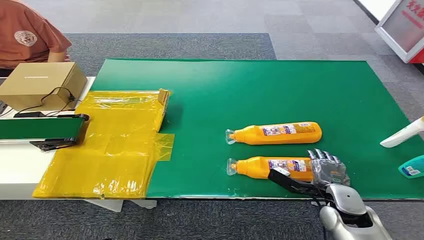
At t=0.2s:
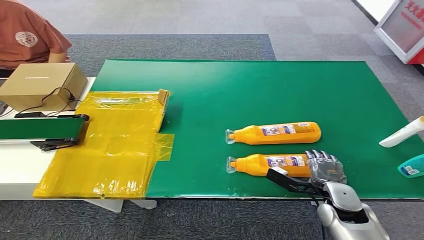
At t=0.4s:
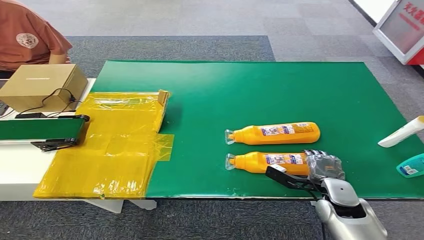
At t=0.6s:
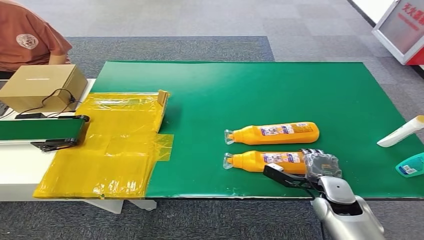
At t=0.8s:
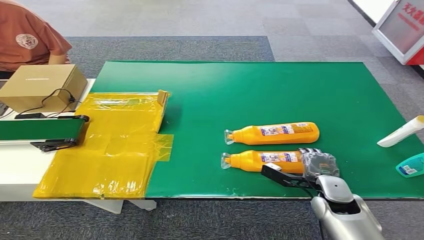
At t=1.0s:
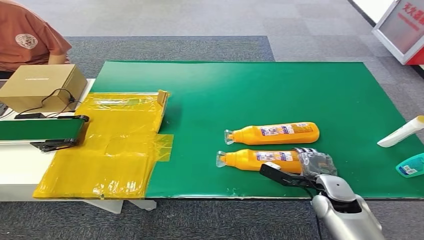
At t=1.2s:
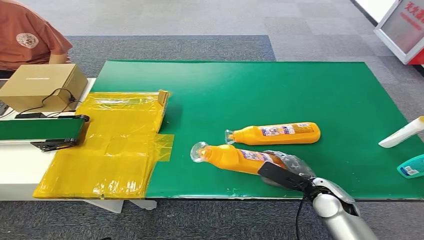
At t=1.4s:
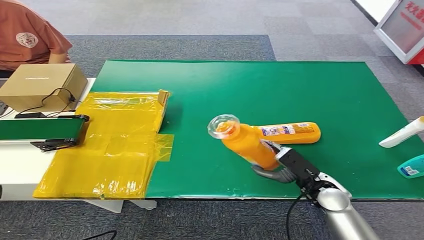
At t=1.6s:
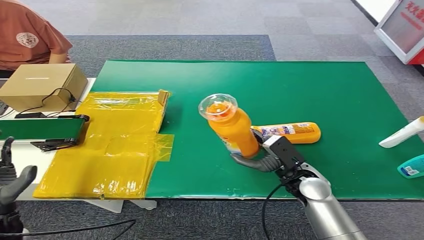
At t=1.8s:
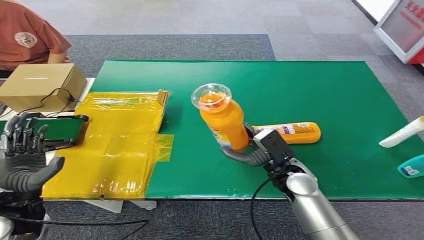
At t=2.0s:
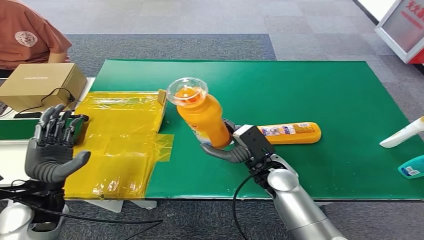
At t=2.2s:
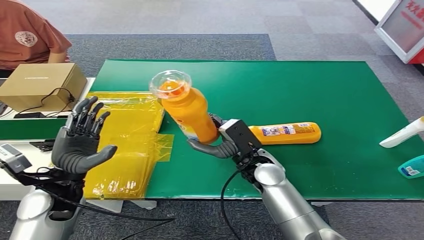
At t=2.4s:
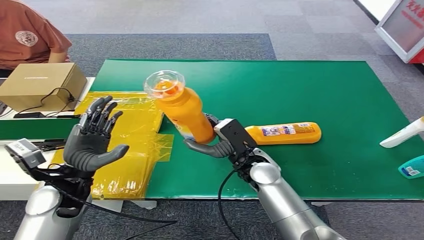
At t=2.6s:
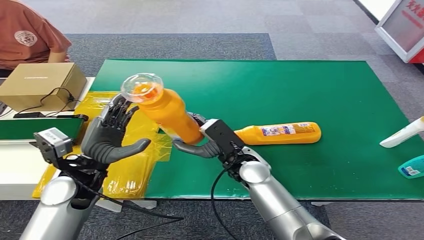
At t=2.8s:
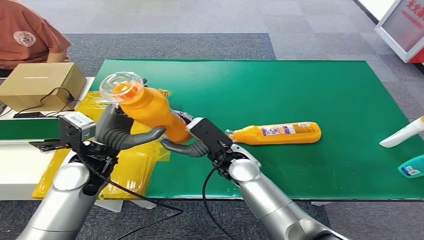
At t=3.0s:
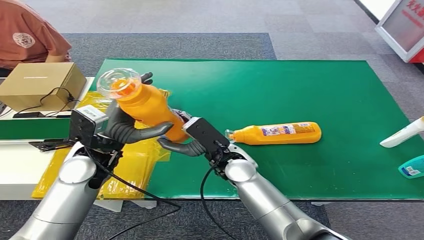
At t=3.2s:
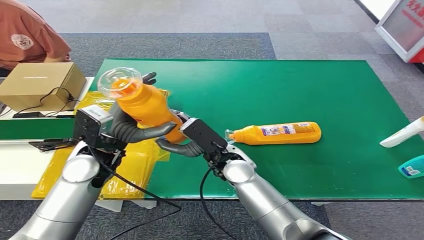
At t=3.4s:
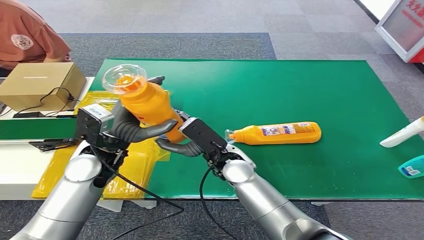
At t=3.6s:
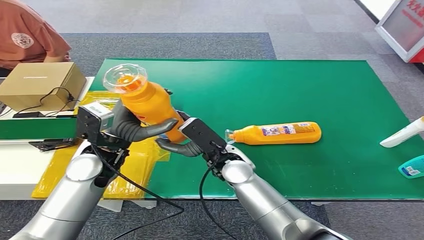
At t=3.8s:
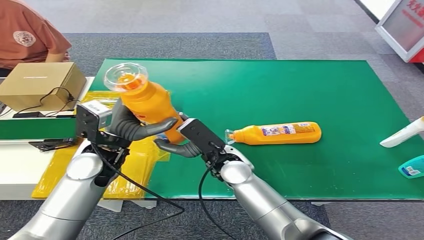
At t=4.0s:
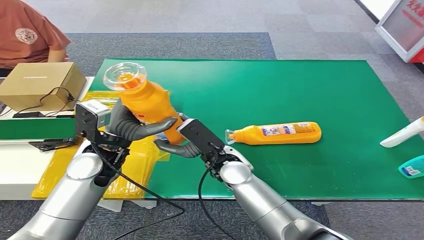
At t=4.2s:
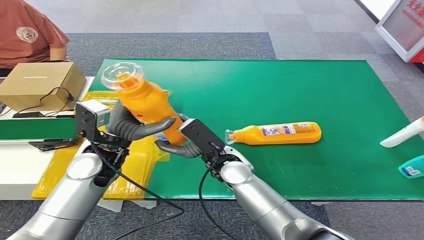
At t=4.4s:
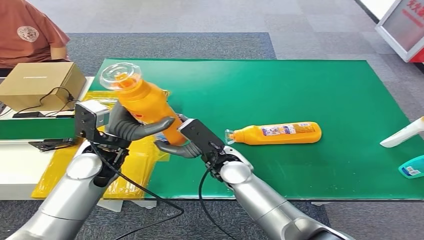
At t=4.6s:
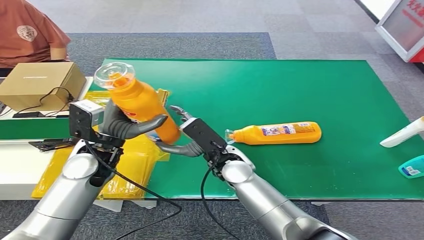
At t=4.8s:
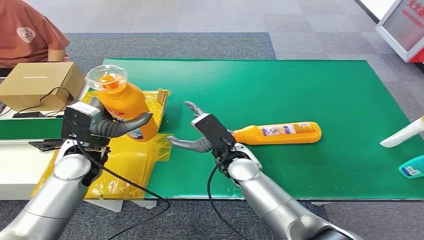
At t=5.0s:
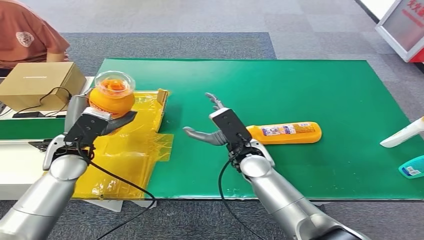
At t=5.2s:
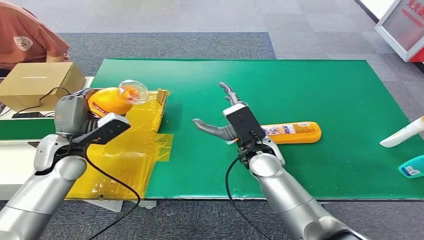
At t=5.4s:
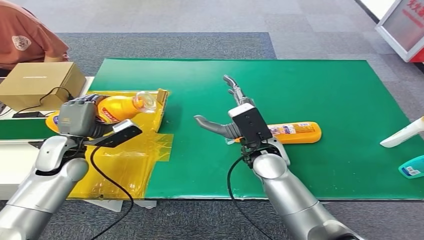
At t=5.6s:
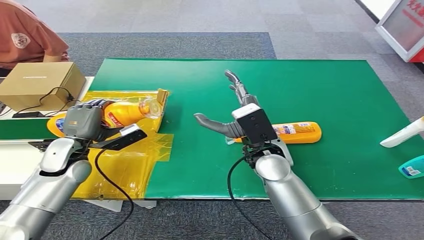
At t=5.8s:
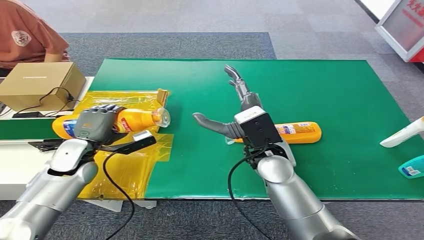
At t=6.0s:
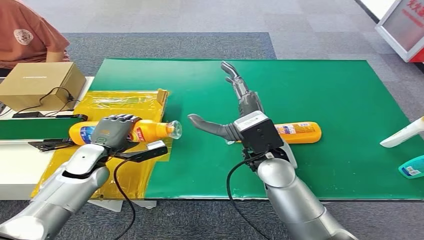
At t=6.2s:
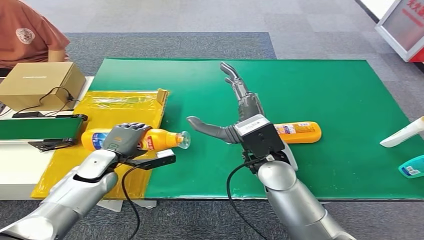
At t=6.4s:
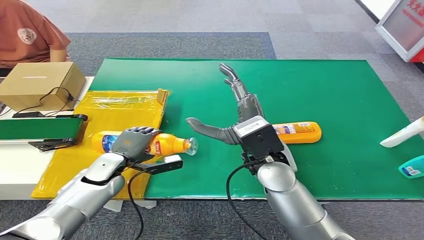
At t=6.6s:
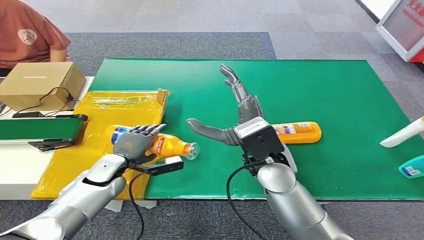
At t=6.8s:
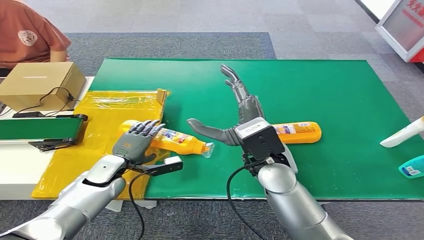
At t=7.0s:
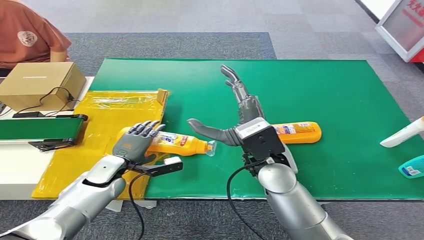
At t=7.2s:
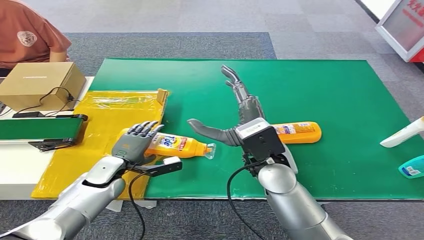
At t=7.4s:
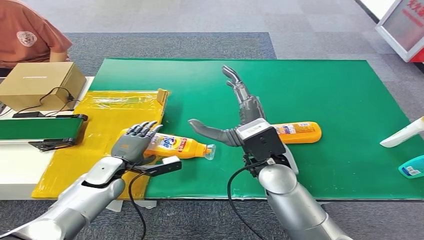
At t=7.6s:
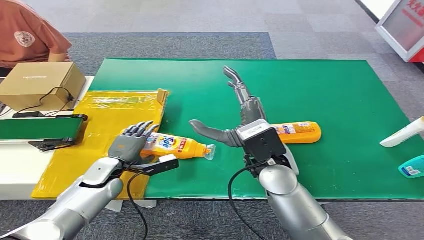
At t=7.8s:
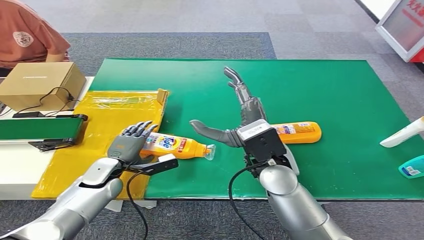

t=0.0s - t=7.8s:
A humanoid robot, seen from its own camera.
Step, t=0.0s - t=1.6s: Pick up the bottle from the table.
Step, t=1.8s - t=7.8s: Turn the bottle to the front side.
t=3.2s - t=4.6s: The hands stay close to where they were, moving slightly.
t=6.2s - t=7.8s: The hands make only small movements.
